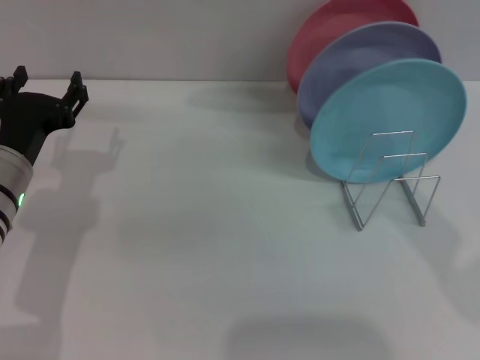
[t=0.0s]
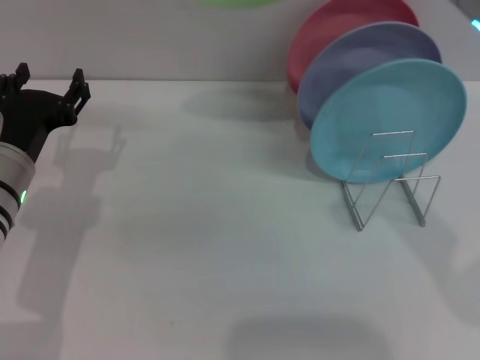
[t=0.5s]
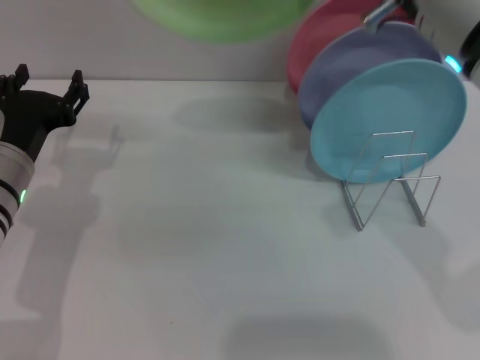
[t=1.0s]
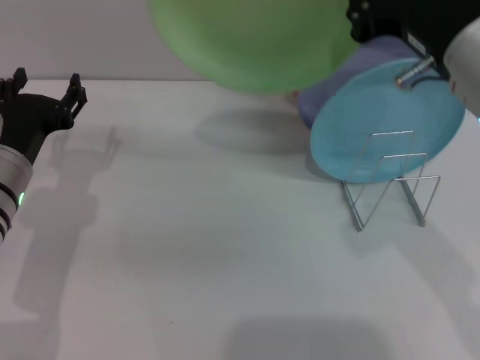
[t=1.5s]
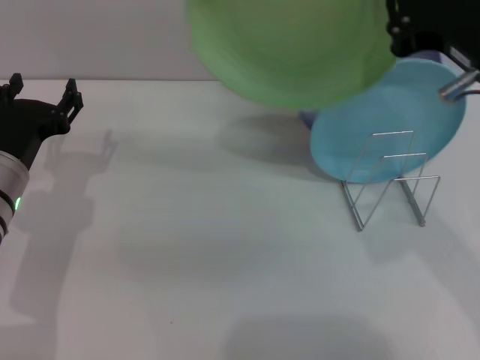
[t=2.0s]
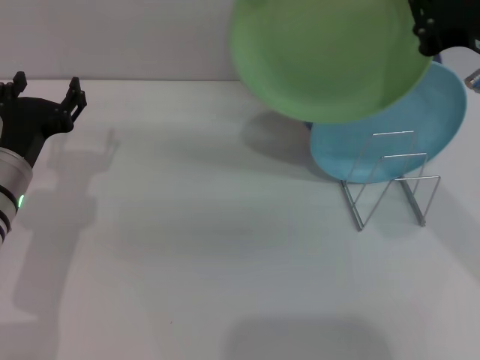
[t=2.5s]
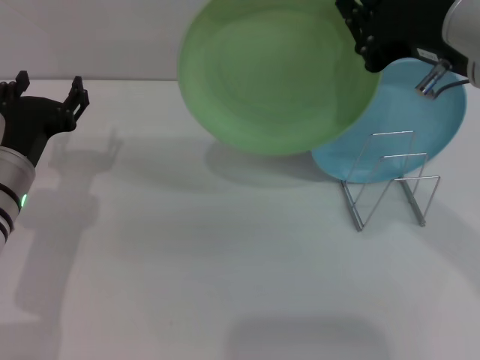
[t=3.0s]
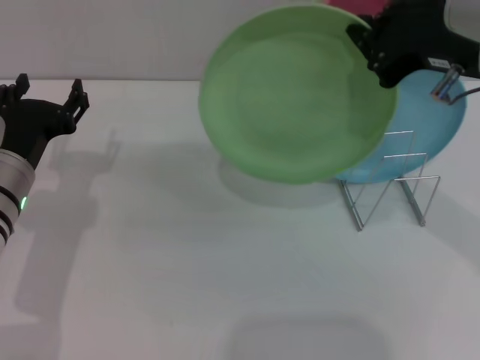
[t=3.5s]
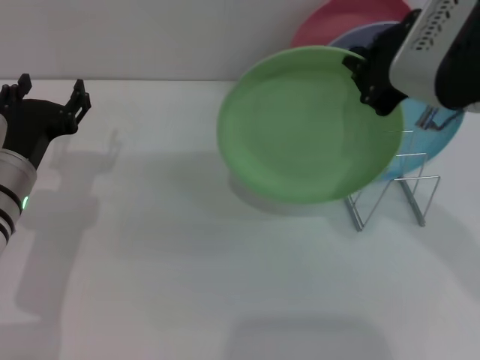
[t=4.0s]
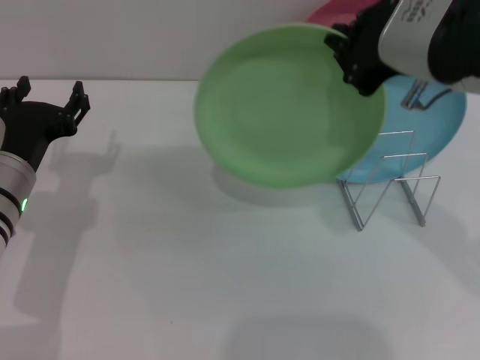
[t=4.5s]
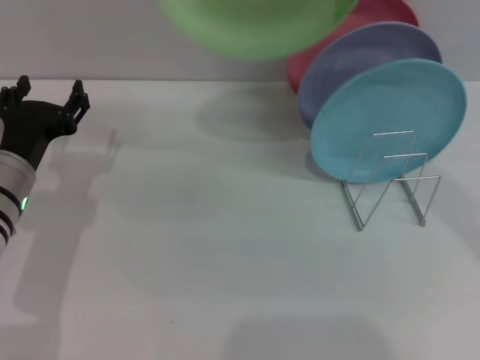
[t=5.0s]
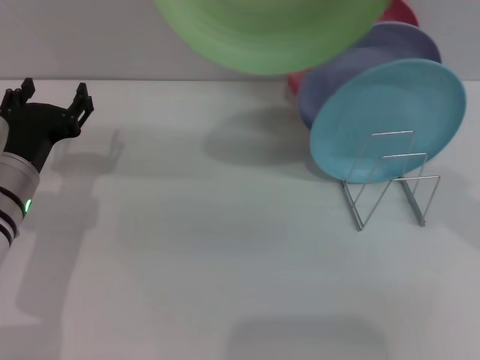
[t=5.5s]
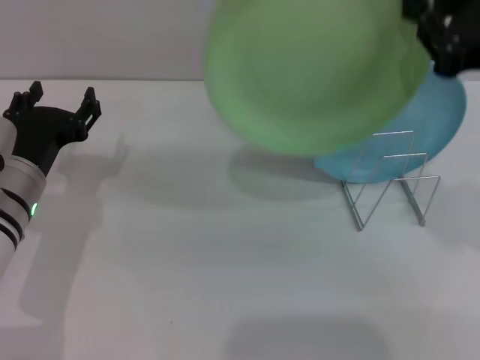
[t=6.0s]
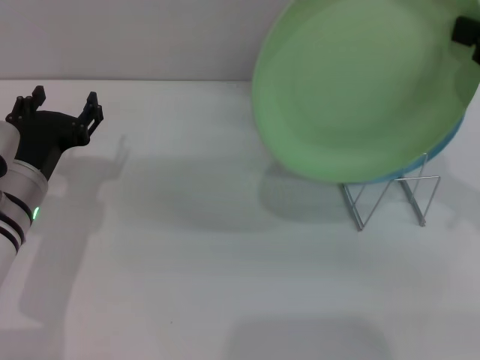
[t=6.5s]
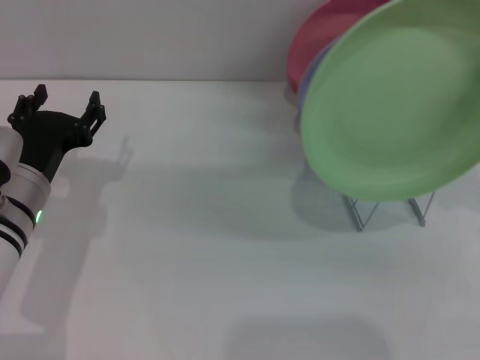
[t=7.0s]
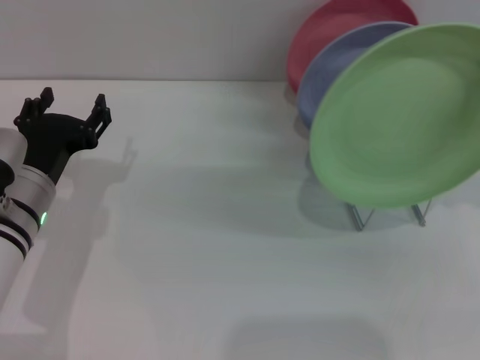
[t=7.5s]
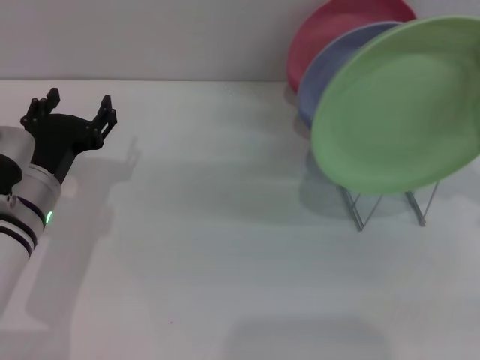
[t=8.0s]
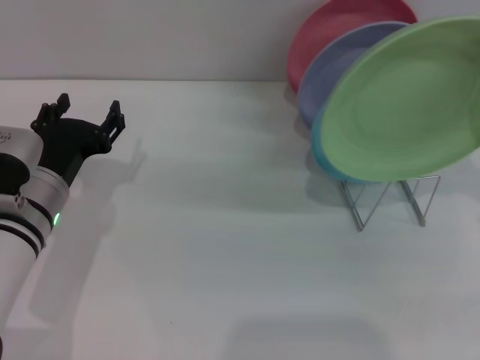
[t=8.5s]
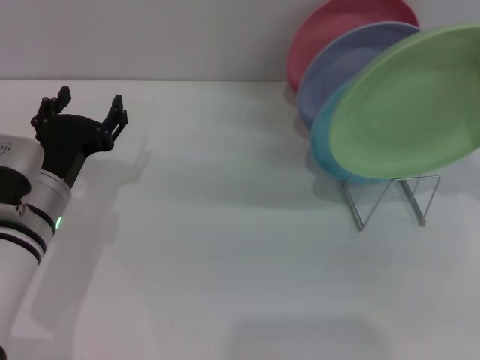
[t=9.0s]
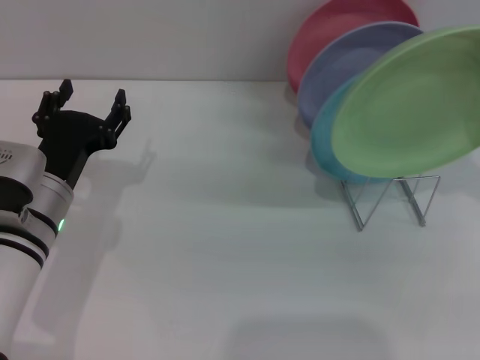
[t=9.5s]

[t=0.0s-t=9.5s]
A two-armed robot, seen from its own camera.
Task of the whole recording: Grip the plate with one hand, pass it to the other, then set it on the shelf.
t=0.0s to t=2.0s: The right gripper is displaced downward by roughly 5 cm.
t=4.0s to t=5.5s: The right gripper ends up some 5 cm from where it was.
t=5.5s to t=7.5s: The right gripper moves to the right and downward, about 15 cm.

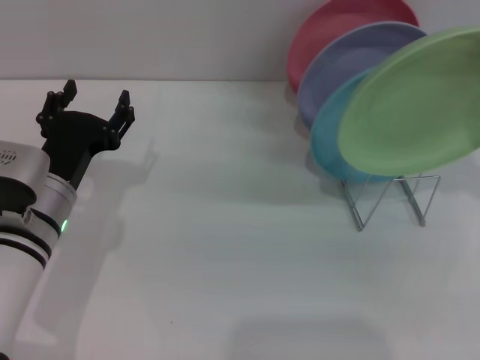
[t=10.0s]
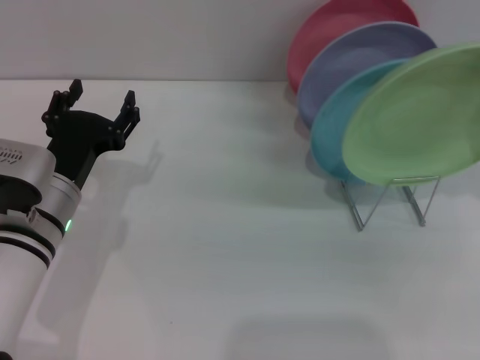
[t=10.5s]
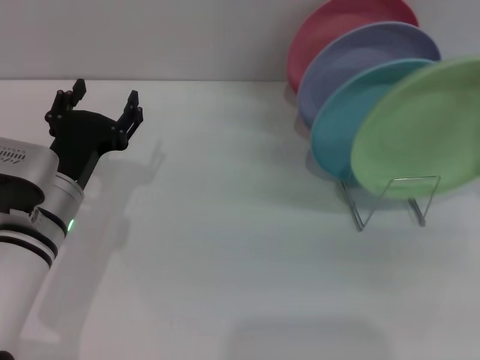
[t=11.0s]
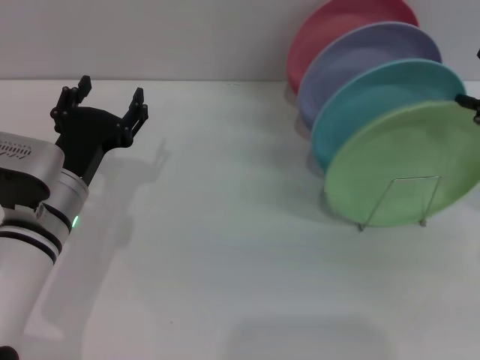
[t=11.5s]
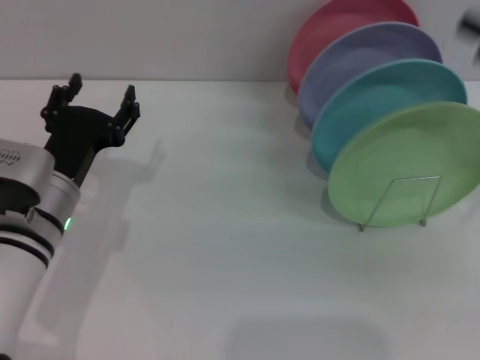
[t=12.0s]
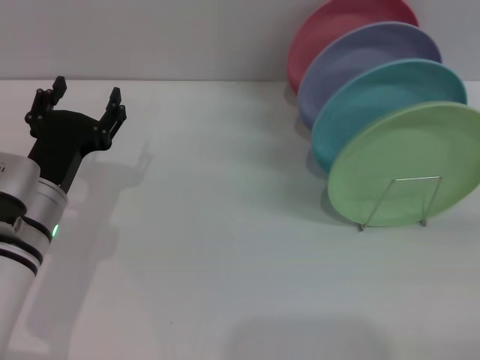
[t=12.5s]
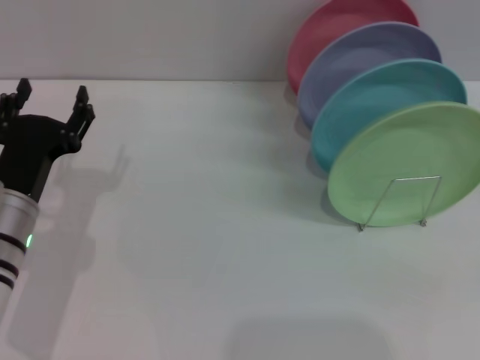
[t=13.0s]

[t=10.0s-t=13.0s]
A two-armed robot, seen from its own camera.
Task of the whole recording: Grip the plate with one hand, pass it to the other, then set it on the shelf.
t=10.0s to t=11.5s: The right gripper opens.
t=11.5s to t=13.0s: The right gripper moves downward, backward and to the right, about 25 cm, and opens its fingers.

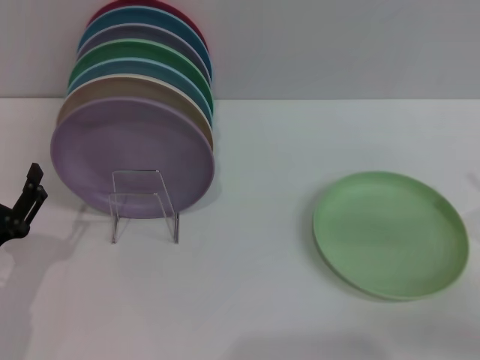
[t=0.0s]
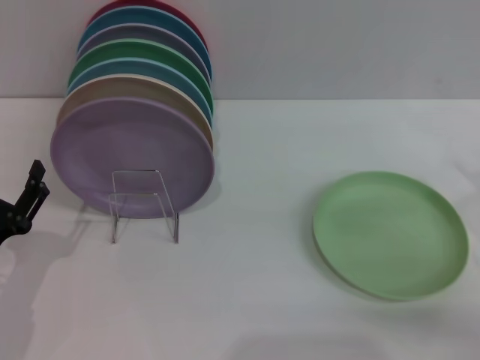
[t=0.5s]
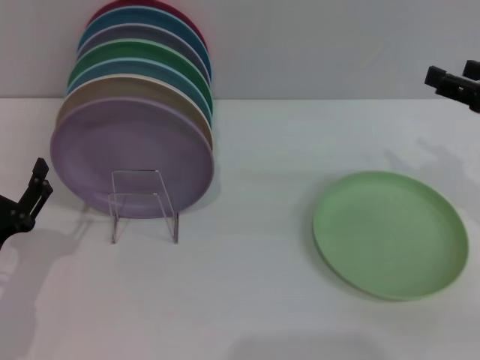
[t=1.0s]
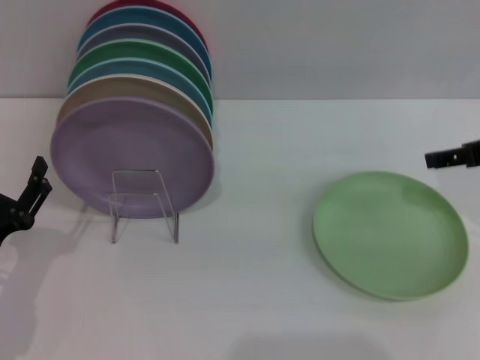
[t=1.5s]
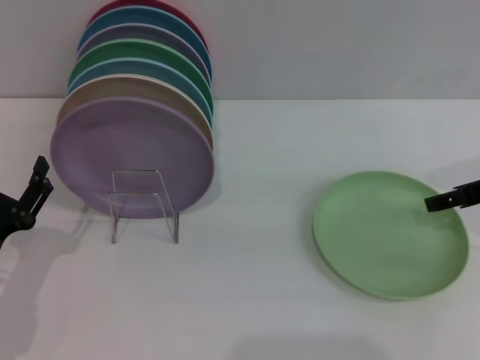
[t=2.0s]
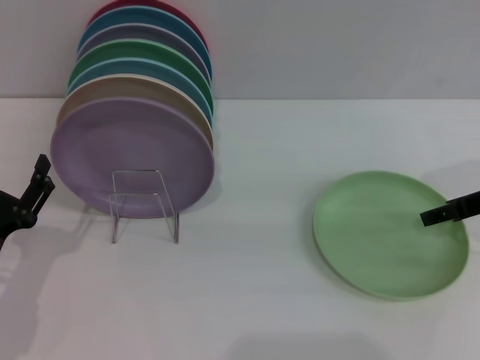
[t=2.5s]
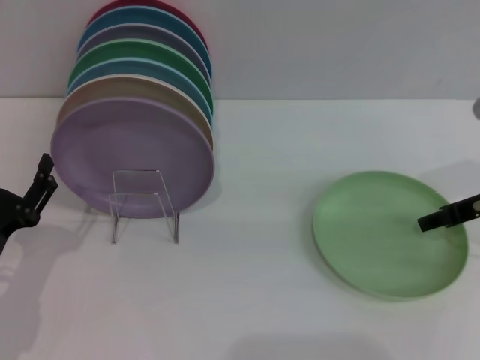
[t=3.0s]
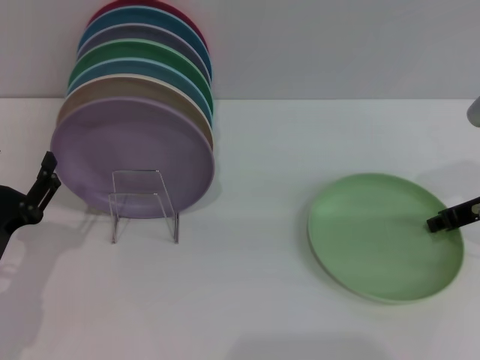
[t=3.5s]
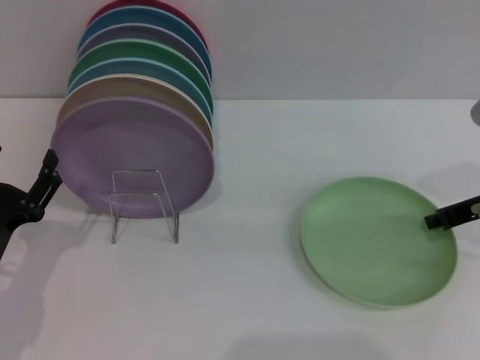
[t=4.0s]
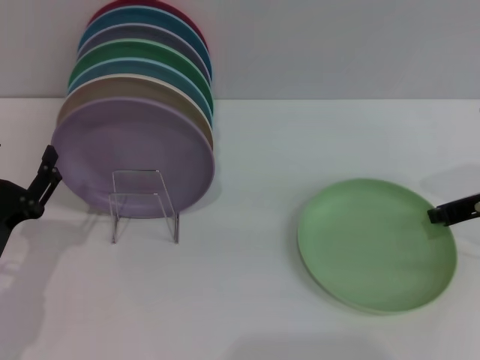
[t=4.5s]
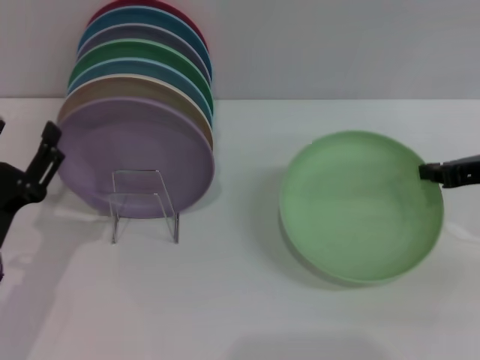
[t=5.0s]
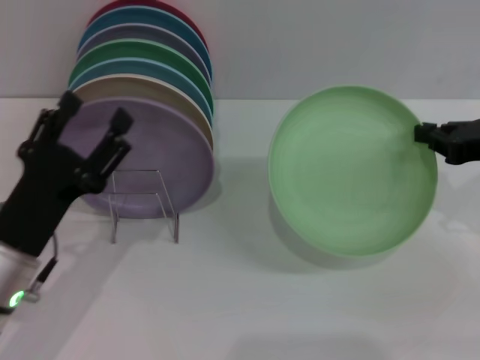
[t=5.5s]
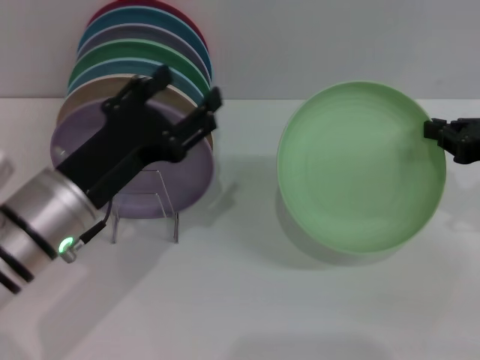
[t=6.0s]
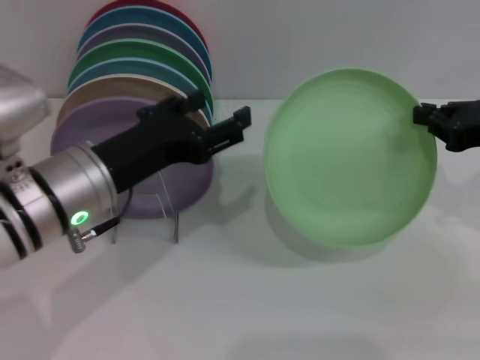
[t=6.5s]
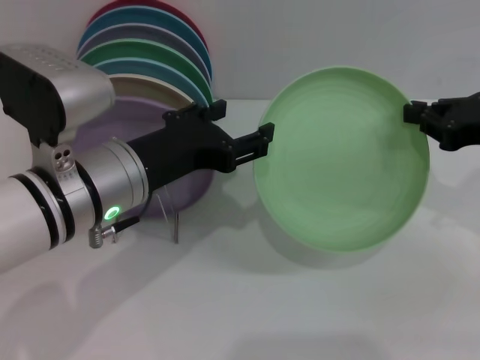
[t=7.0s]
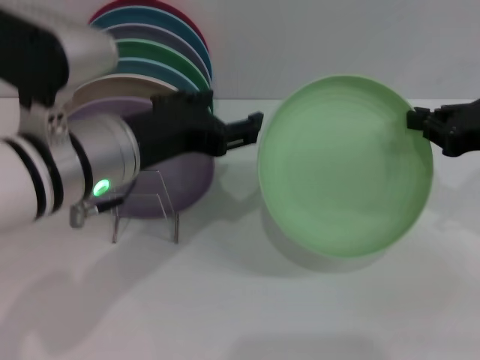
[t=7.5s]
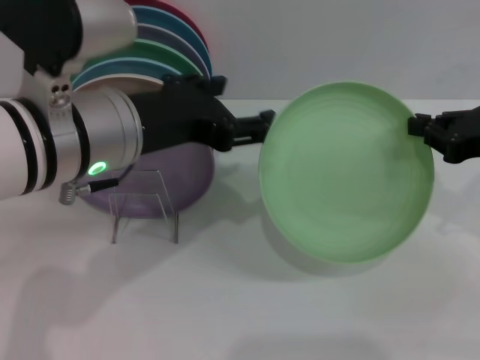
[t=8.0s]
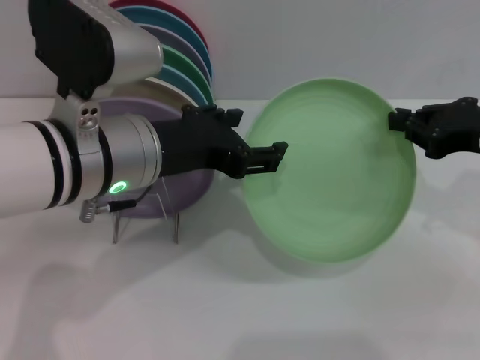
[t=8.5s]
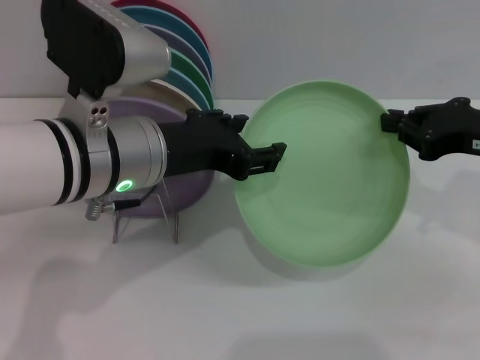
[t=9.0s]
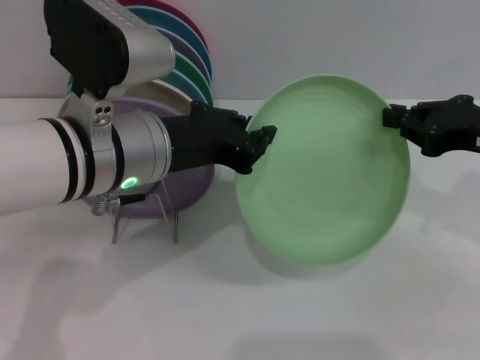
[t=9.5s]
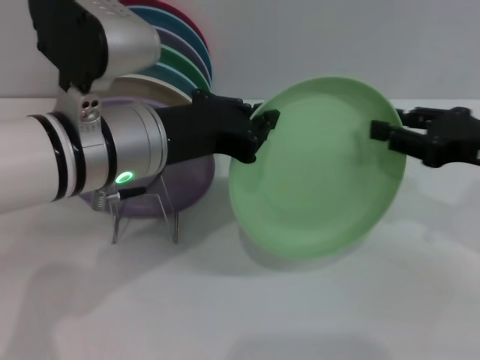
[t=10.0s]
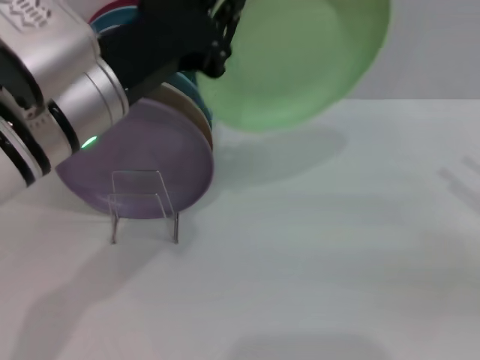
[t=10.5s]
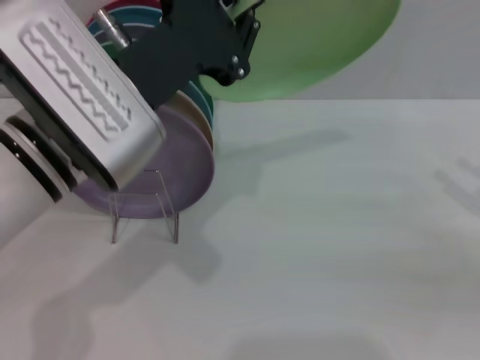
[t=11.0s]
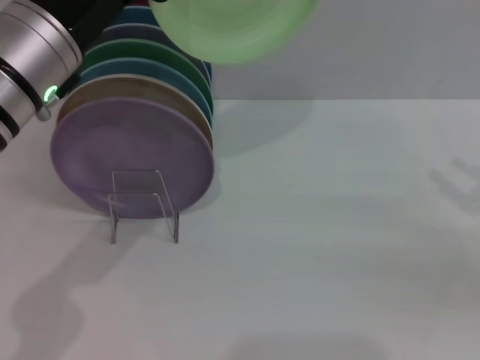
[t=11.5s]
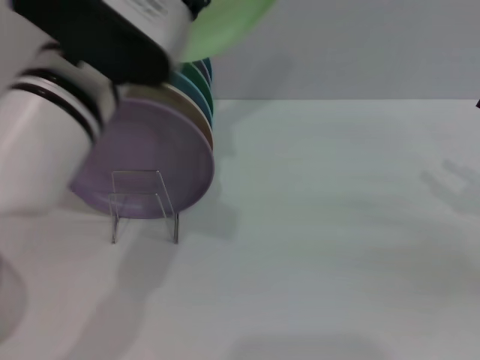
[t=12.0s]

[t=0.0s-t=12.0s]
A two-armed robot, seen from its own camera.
Task of the whole recording: Grip the plate with one hand, pass it to the other, then set it on the shelf.
Step, t=0.0s to t=5.0s: Pick up the plate with the right gripper.
Step, t=5.5s to t=10.0s: Pass the plate from the right gripper to the left gripper.
t=0.0s to t=2.0s: The right gripper goes some 15 cm forward and upward.
t=2.0s to t=4.0s: The right gripper closes.
t=4.0s to t=6.0s: The left gripper goes about 15 cm upward and to the right, while the right gripper changes place by approximately 5 cm.
t=6.0s to t=8.0s: The left gripper shifts about 10 cm upward.
t=8.0s to t=10.0s: The left gripper closes its fingers.
t=10.0s to t=12.0s: The right gripper heads to the right, covering roughly 10 cm, and opens up.

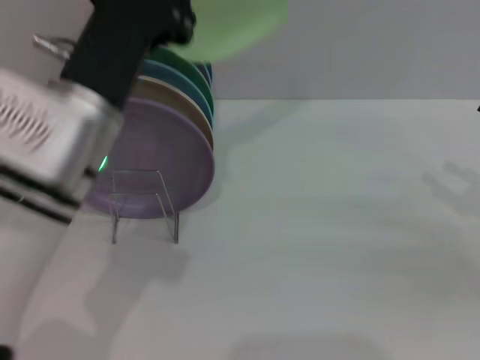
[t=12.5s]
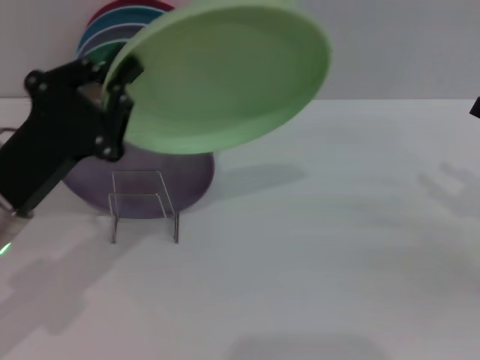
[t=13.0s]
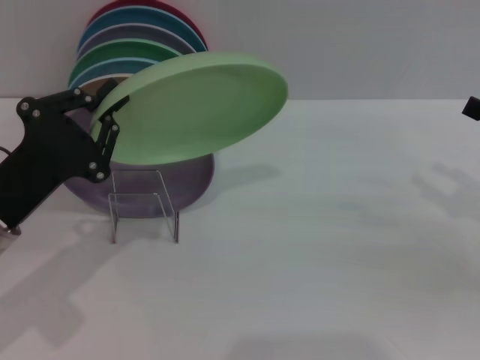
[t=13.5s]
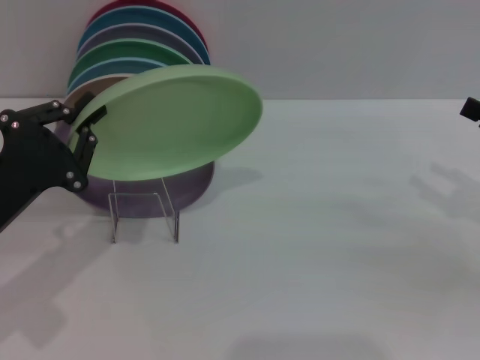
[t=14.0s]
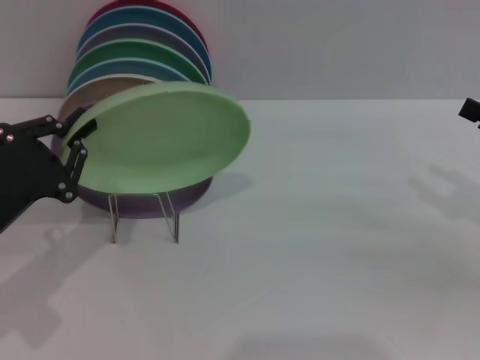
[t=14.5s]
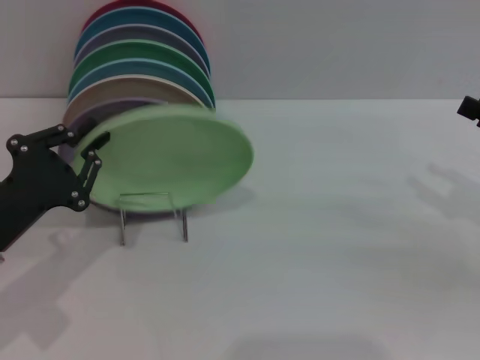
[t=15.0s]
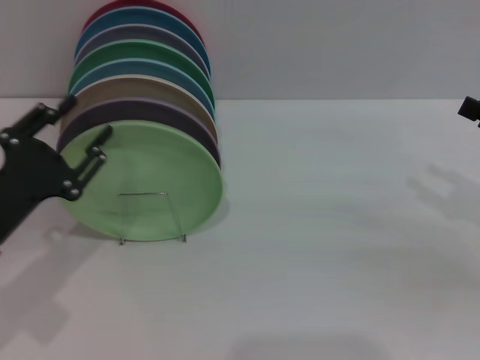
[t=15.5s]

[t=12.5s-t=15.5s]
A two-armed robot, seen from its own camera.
Task of the whole recording: Grip the plate with one hand, pass it to the other, then set it on the shelf.
t=12.5s to t=14.0s: The left gripper goes roughly 15 cm to the left and downward.
t=14.0s to t=15.5s: The left gripper opens.
